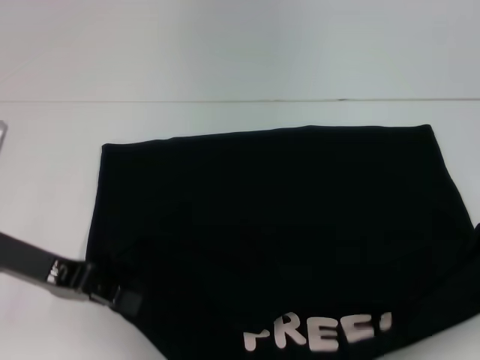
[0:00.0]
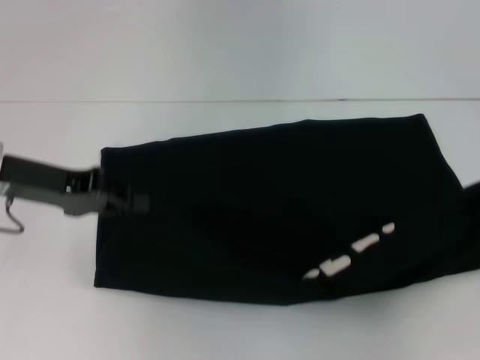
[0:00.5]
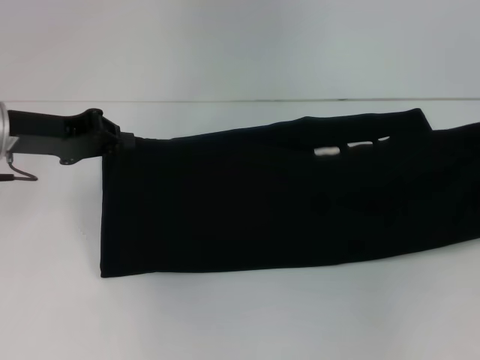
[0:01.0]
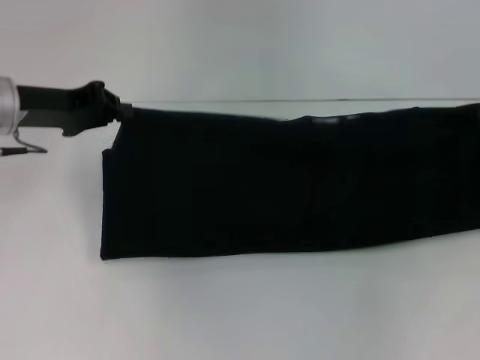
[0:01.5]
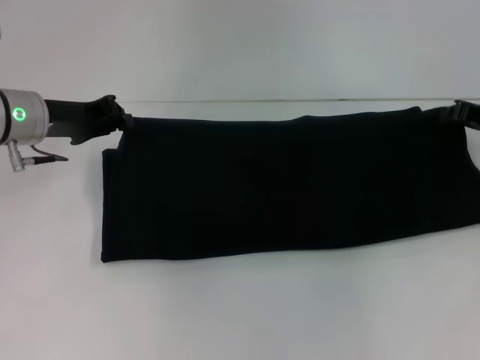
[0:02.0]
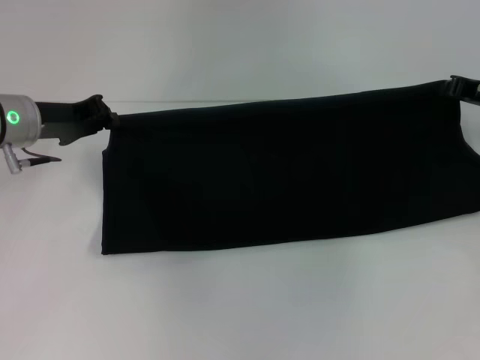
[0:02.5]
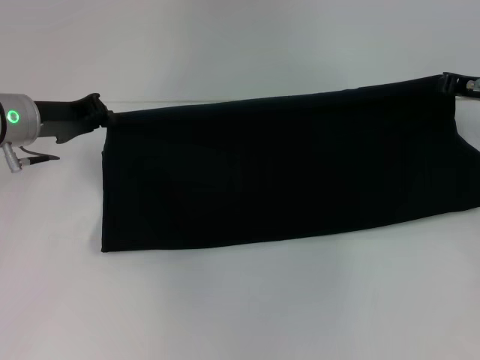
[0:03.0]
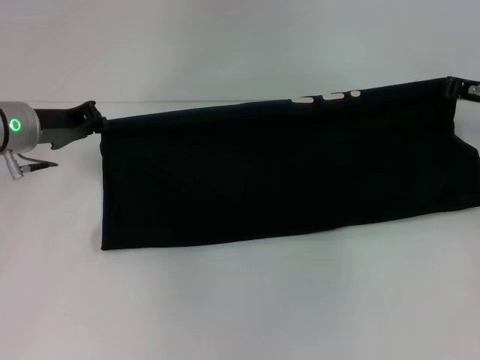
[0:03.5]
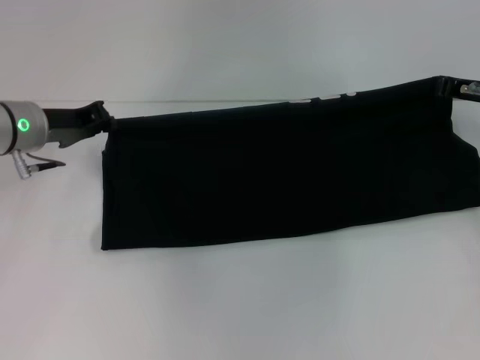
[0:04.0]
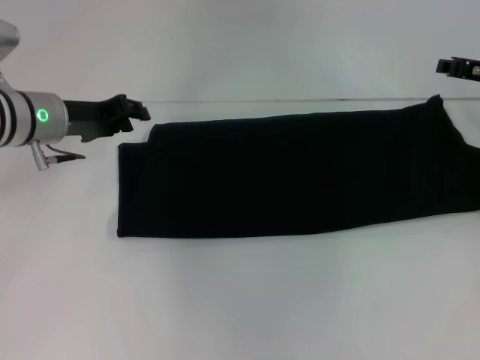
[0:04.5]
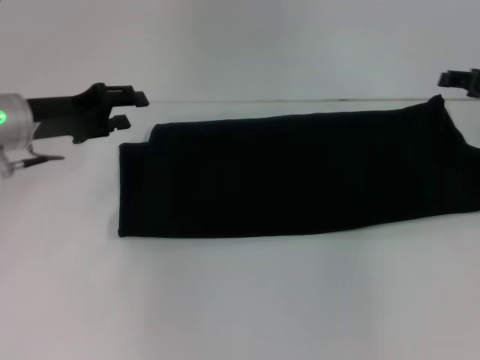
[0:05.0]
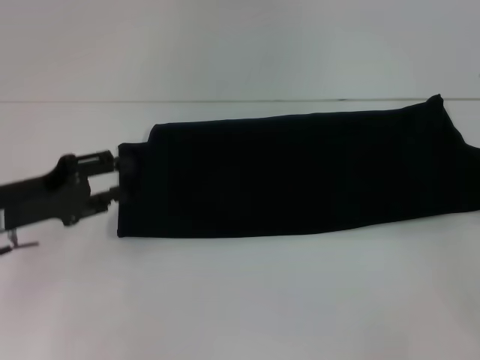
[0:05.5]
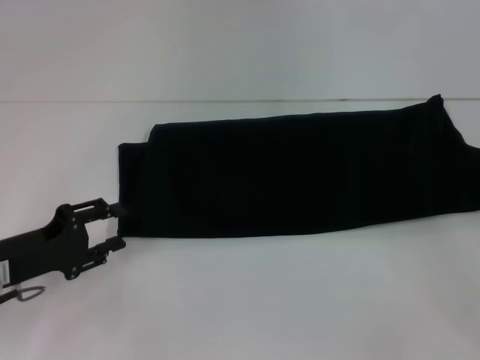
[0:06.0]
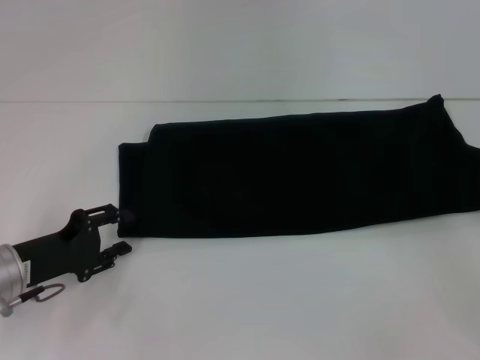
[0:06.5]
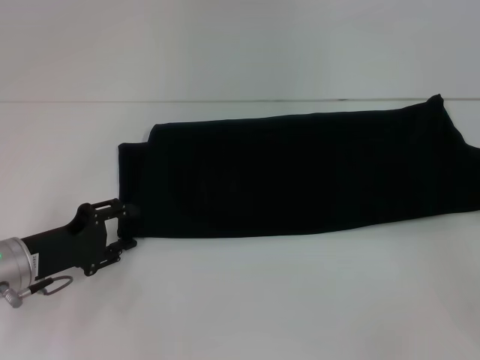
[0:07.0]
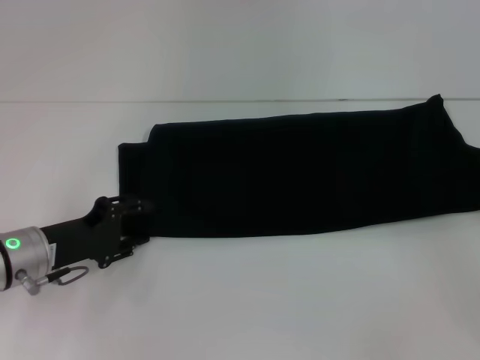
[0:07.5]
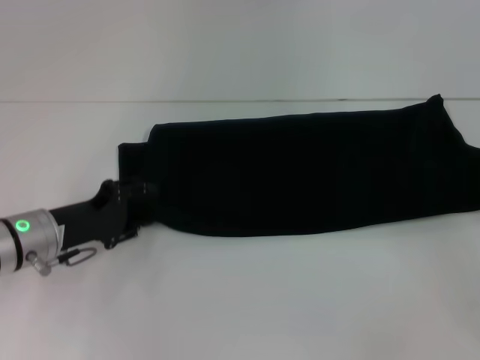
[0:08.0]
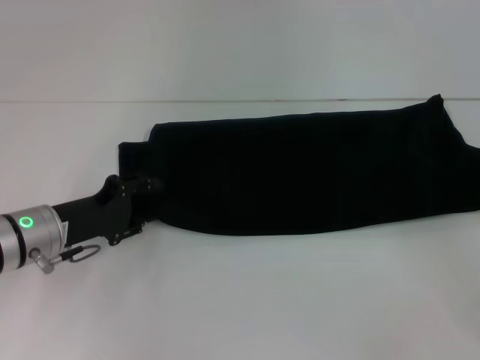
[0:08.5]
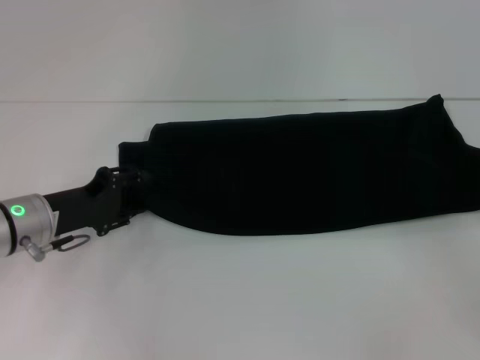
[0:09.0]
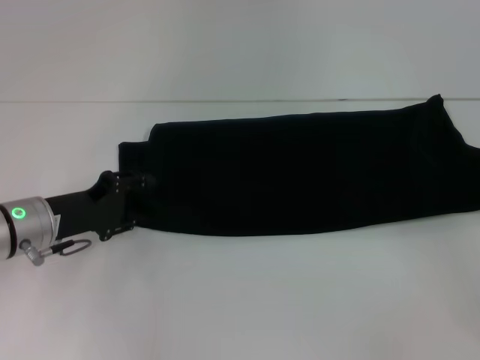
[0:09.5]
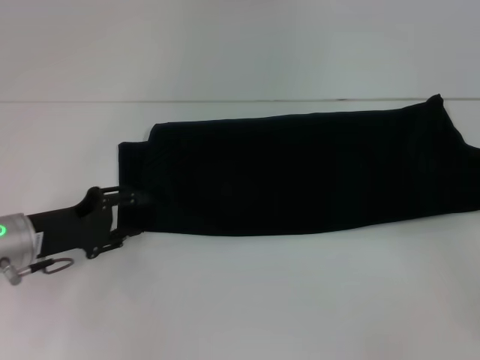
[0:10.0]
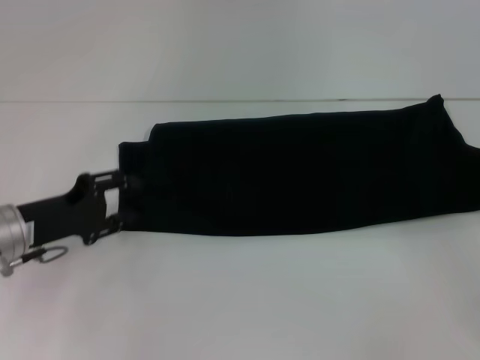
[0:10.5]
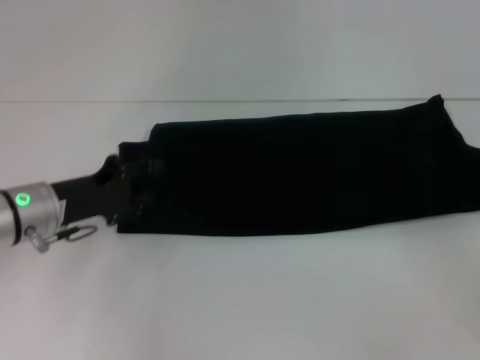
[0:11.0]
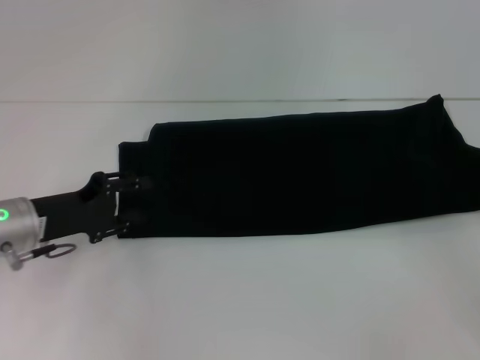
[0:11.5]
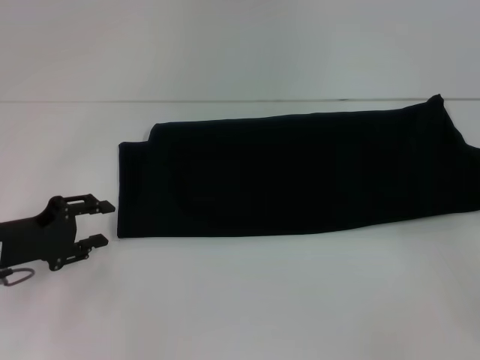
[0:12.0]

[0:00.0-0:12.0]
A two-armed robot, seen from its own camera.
Step, 0:00.0 to 0:05.0: Fold the clothes with your right hand.
0:00.0 to 0:02.0: The right gripper travels forward and to the left by some 15 cm; the left gripper goes approximately 10 cm forward.
0:02.0 to 0:04.0: There are only small adjustments of the grippers.
0:04.0 to 0:06.0: The right gripper heads backward, covering about 15 cm, and opens up, while the left gripper travels backward and downward by roughly 15 cm, and opens its fingers.
0:06.0 to 0:08.0: The left gripper changes place by about 5 cm.
0:08.0 to 0:10.0: The grippers move only a little.
0:10.0 to 0:12.0: The grippers move only a little.

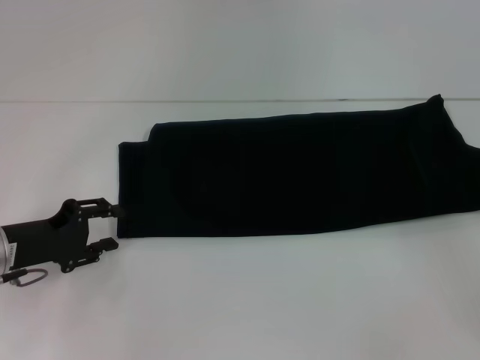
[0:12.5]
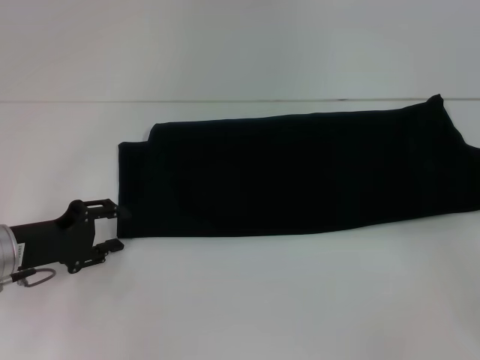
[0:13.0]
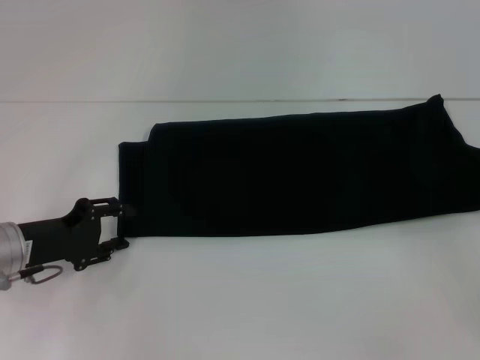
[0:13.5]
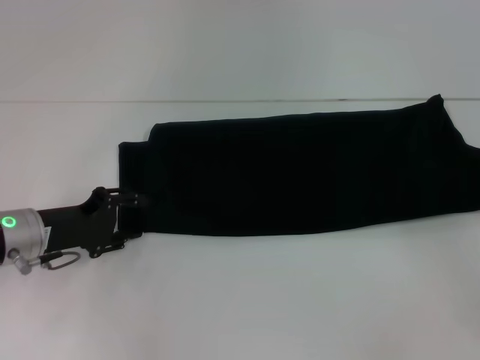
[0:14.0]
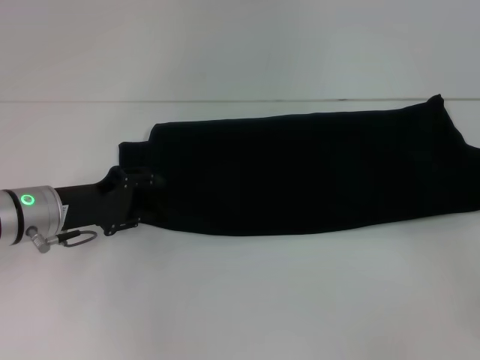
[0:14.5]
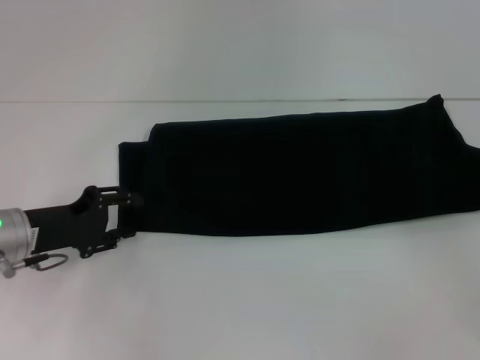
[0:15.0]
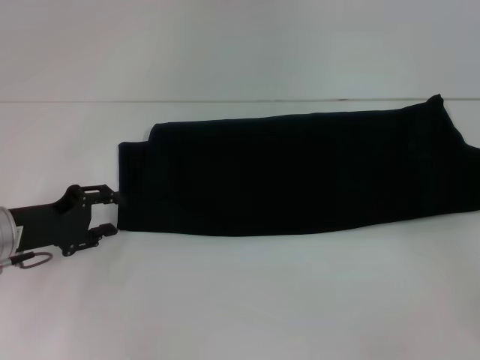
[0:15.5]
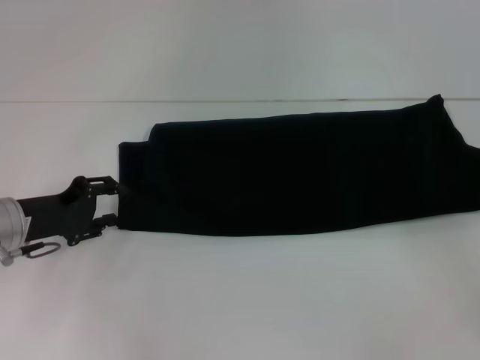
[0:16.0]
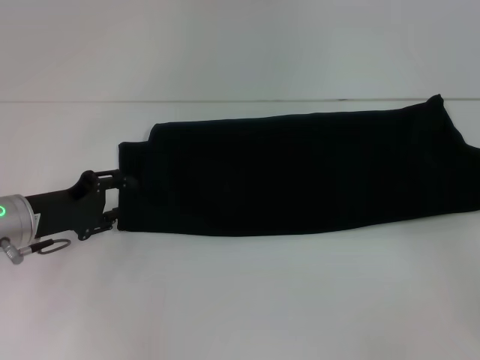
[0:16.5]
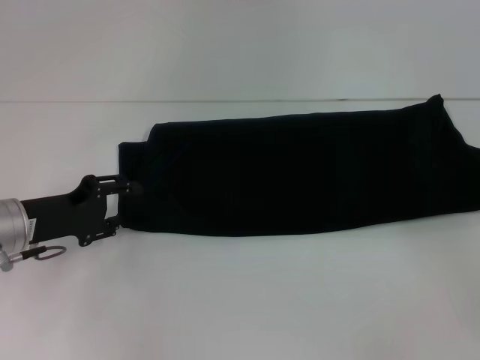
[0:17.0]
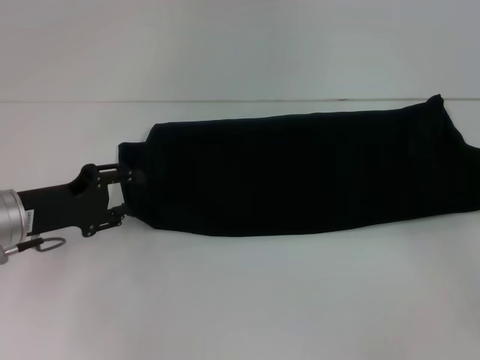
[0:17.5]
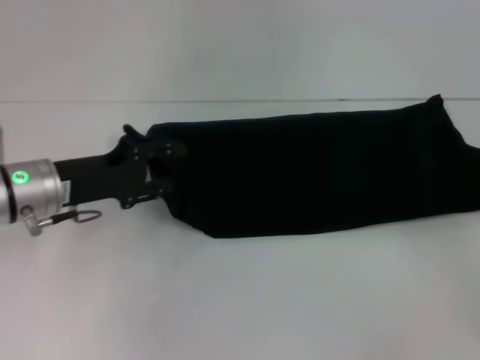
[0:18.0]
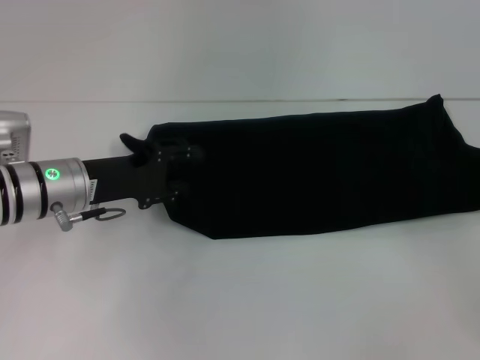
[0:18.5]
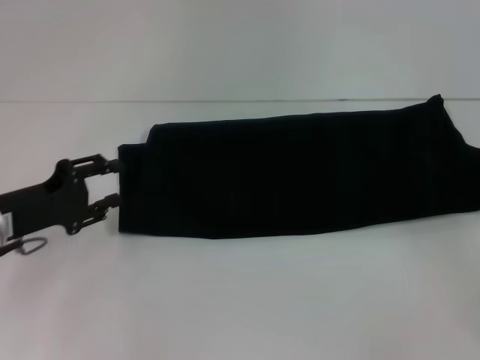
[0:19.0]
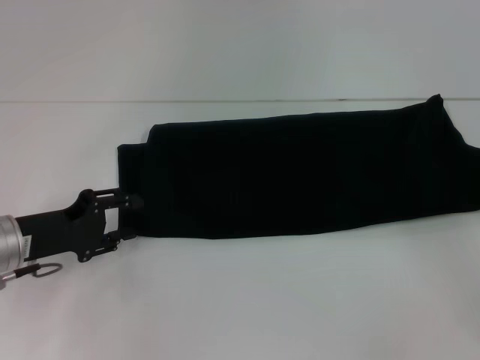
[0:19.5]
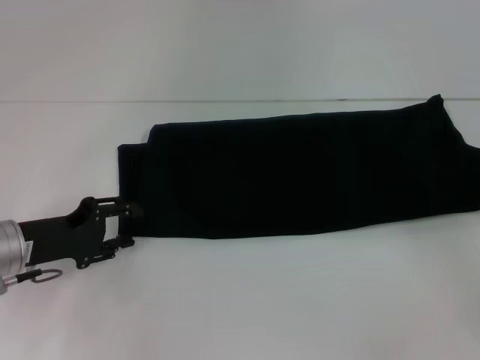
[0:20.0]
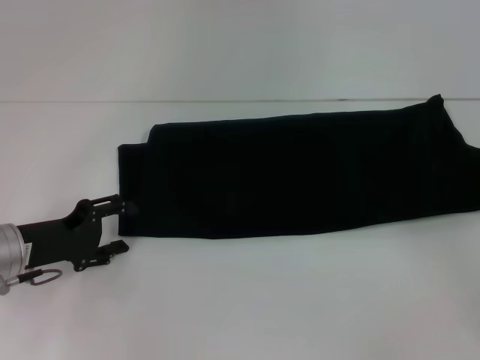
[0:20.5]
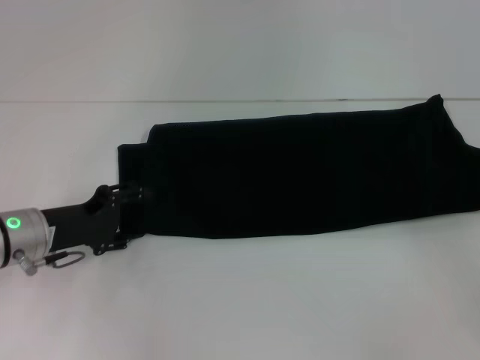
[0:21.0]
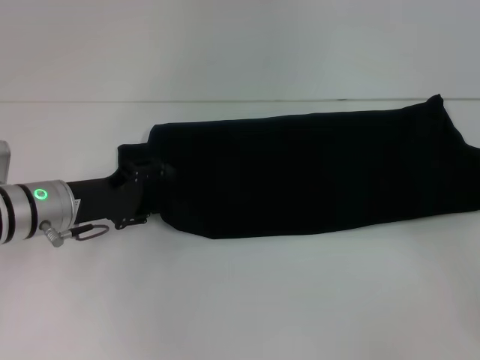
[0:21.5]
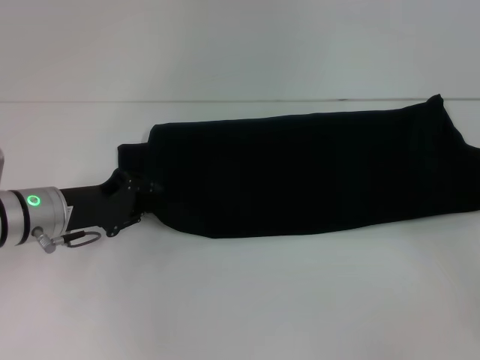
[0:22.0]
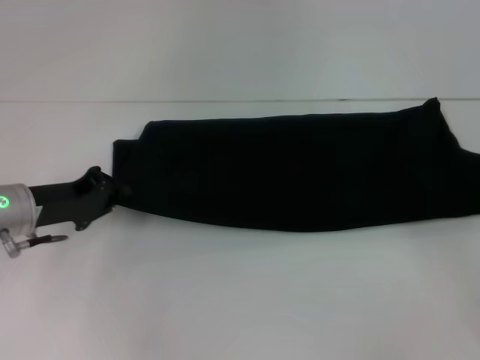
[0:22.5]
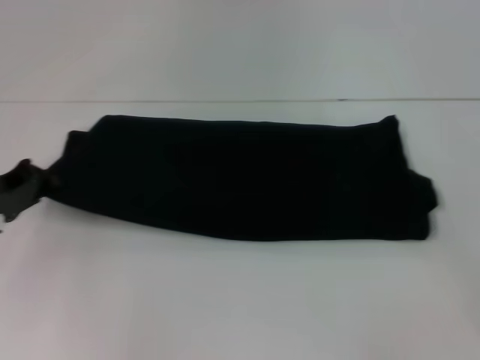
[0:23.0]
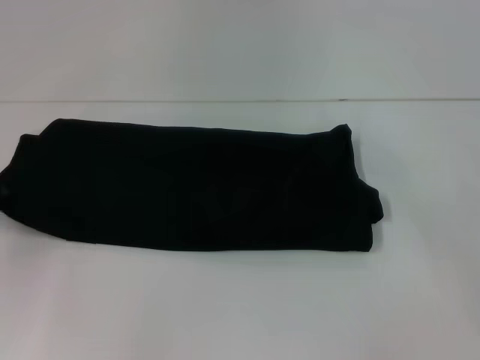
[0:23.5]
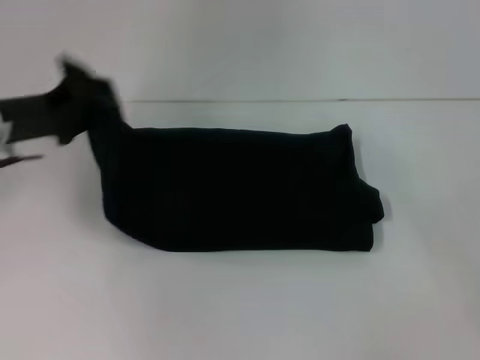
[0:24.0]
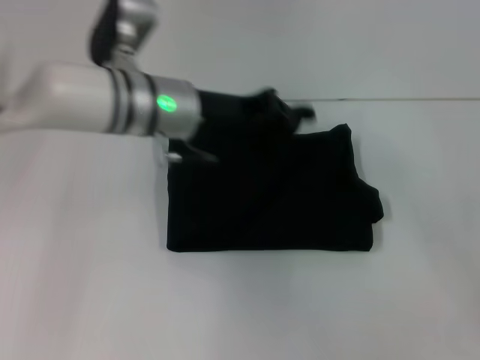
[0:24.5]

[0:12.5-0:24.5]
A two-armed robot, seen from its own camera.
0:12.5 to 0:14.5: The left gripper changes place by some 5 cm.
0:14.5 to 0:16.5: The grippers move only a little.
0:16.5 to 0:18.5: The left gripper goes roughly 5 cm to the right.
0:18.5 to 0:20.5: The left gripper heads to the left and backward, covering approximately 10 cm.
0:20.5 to 0:22.5: The left gripper closes its fingers.
0:22.5 to 0:24.5: The left gripper heads to the right and upward, covering about 20 cm.

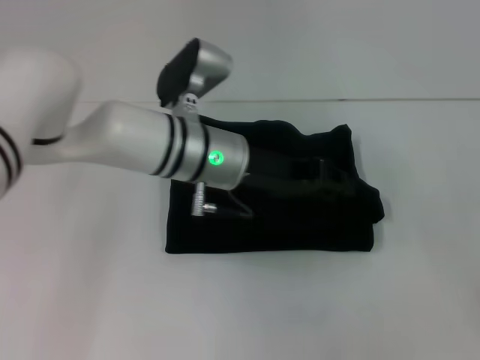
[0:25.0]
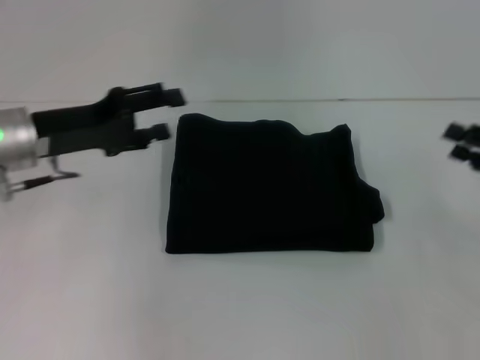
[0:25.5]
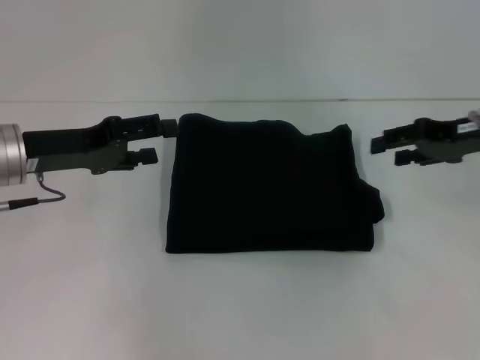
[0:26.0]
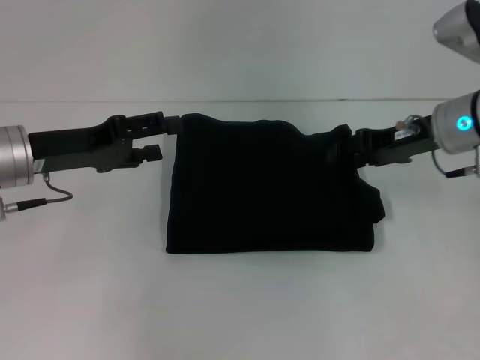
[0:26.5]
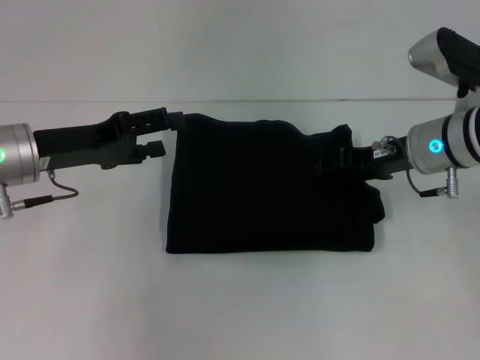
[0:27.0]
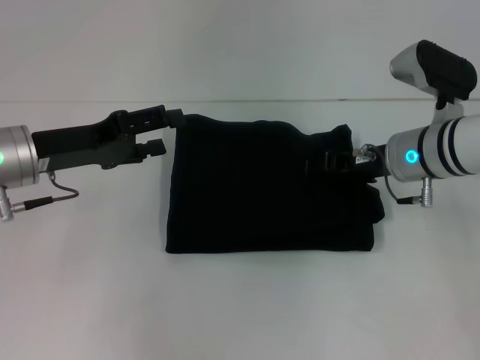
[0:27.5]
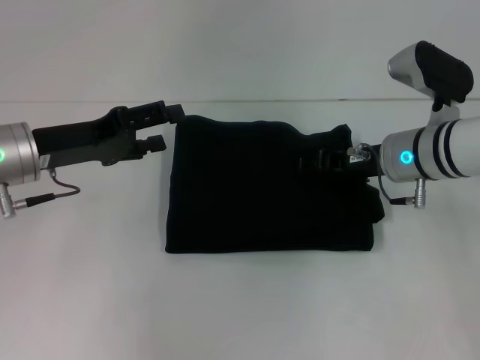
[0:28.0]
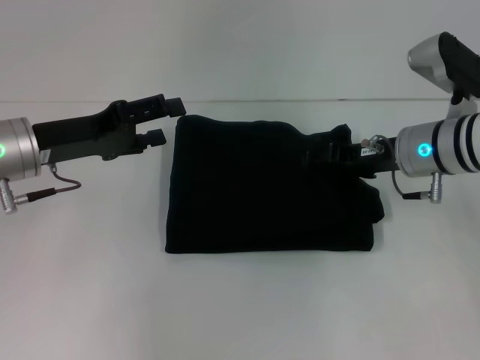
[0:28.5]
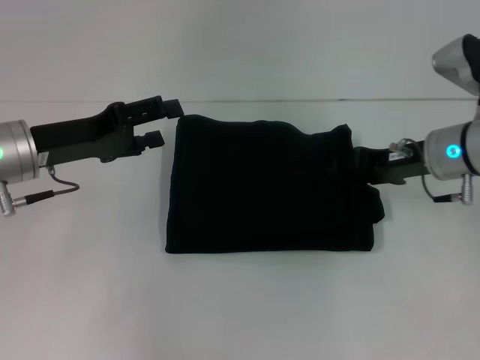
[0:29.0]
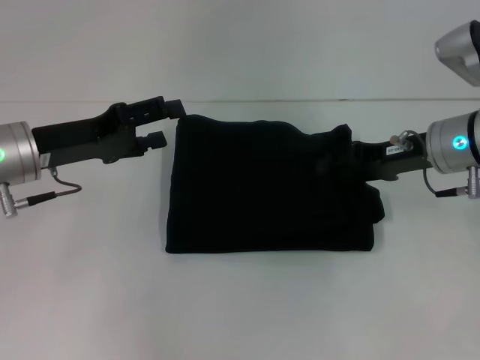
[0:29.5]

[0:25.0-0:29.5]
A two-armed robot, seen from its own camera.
0:25.0 to 0:27.0: The left gripper heads to the left, covering roughly 20 cm, and opens up. Meanwhile the right gripper is displaced to the left and forward by about 20 cm.
0:27.0 to 0:29.5: There are only small adjustments of the grippers.
